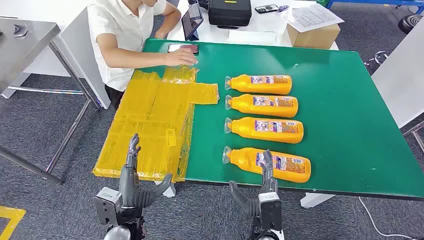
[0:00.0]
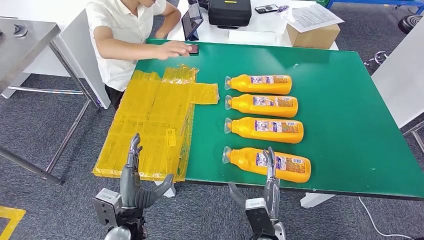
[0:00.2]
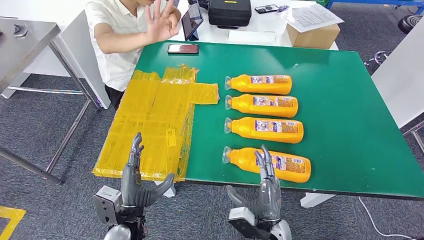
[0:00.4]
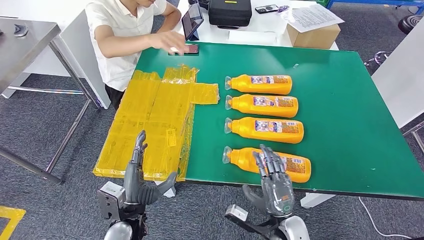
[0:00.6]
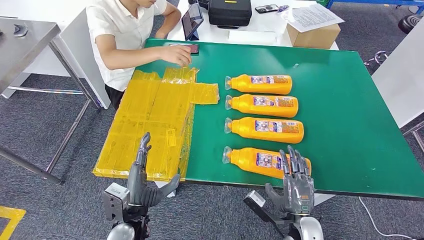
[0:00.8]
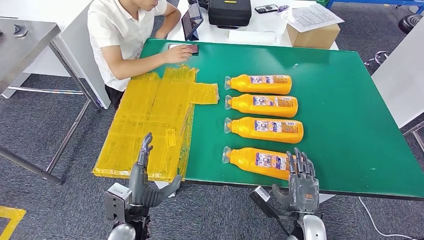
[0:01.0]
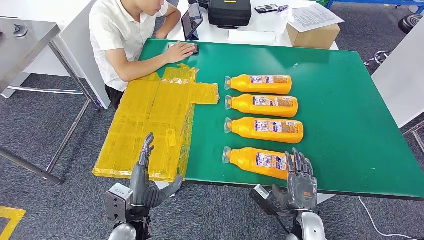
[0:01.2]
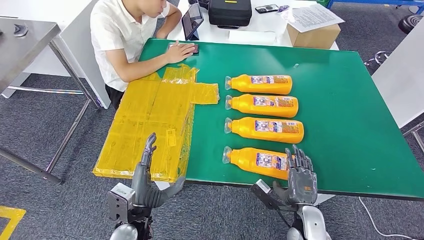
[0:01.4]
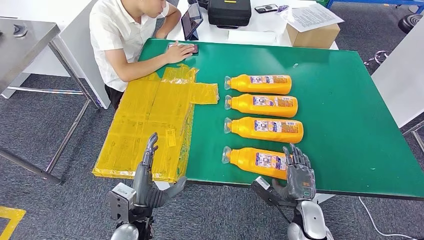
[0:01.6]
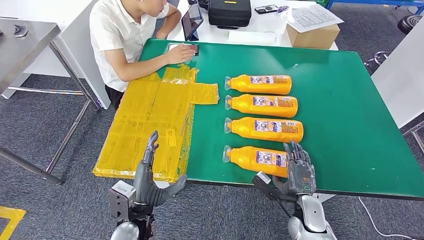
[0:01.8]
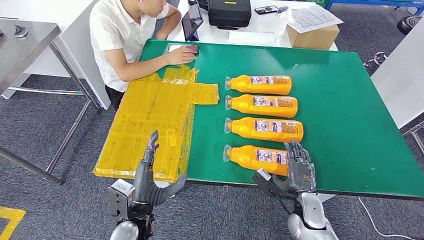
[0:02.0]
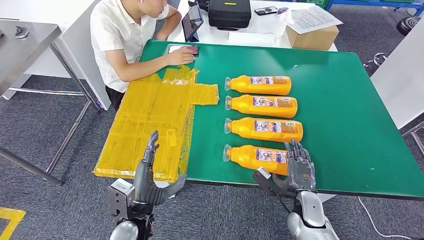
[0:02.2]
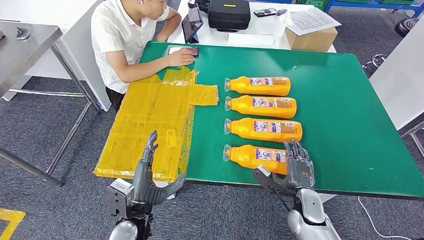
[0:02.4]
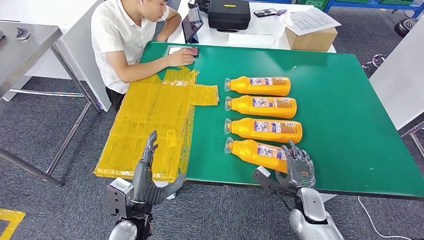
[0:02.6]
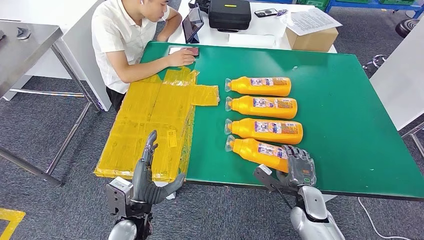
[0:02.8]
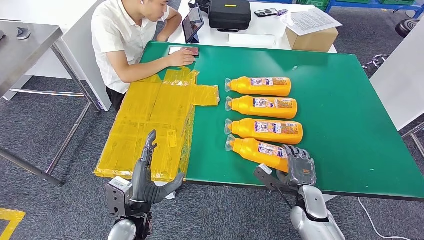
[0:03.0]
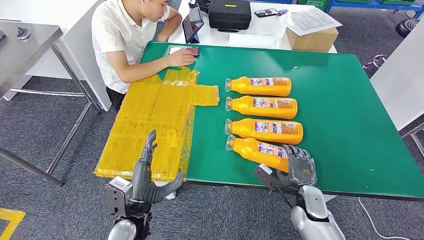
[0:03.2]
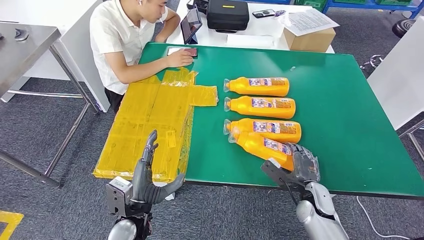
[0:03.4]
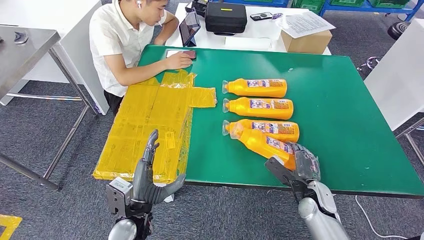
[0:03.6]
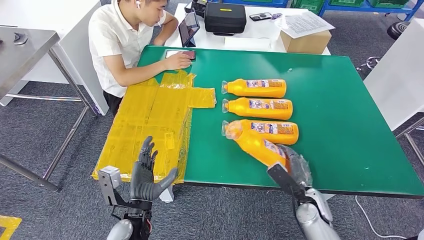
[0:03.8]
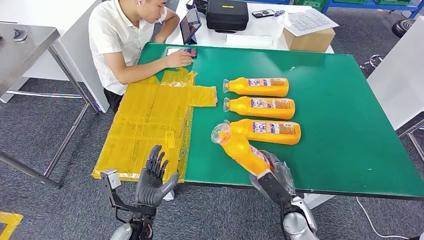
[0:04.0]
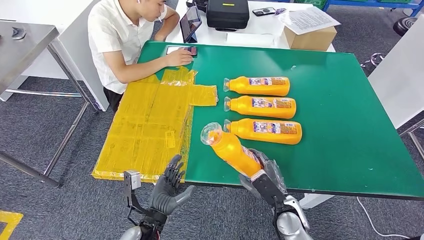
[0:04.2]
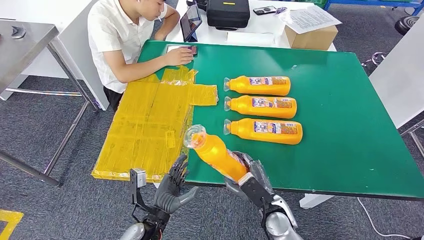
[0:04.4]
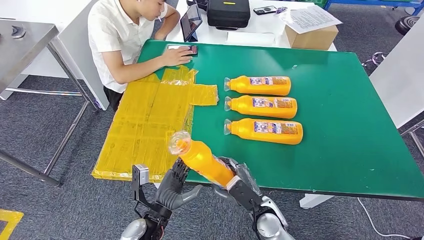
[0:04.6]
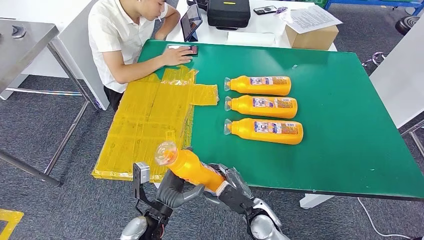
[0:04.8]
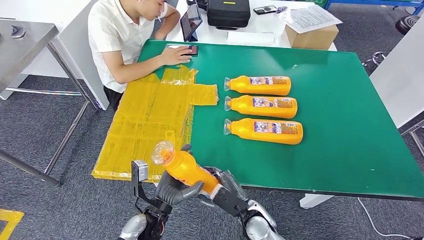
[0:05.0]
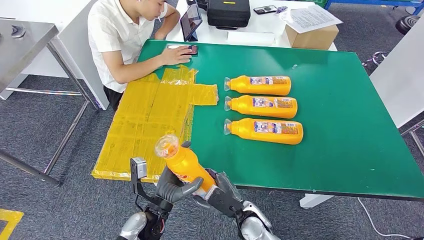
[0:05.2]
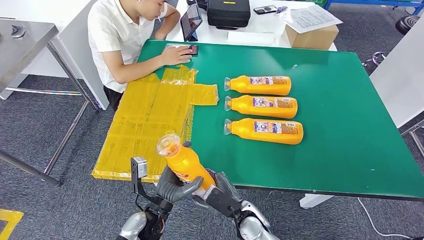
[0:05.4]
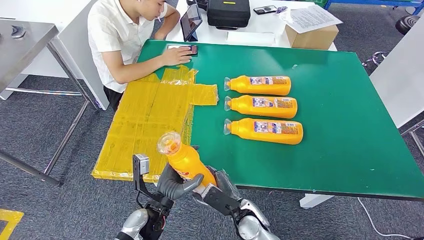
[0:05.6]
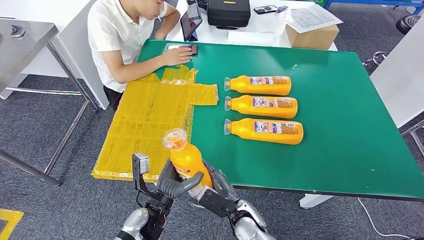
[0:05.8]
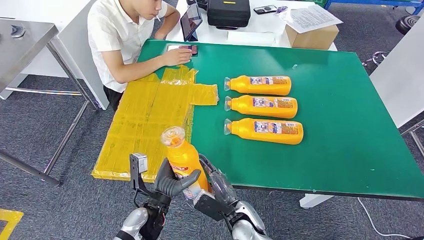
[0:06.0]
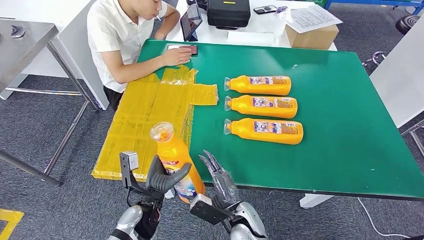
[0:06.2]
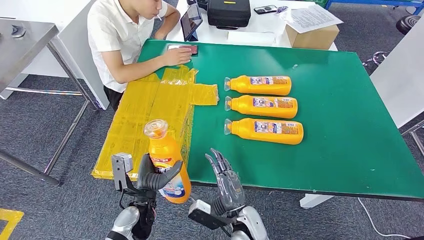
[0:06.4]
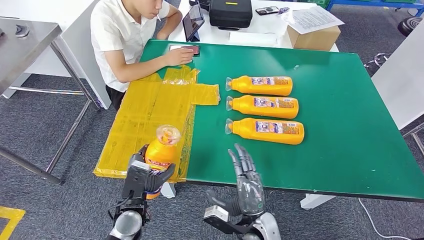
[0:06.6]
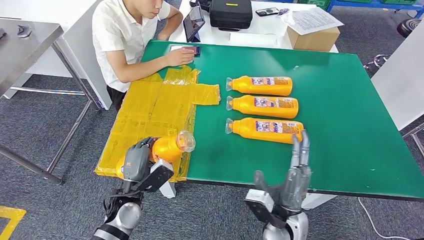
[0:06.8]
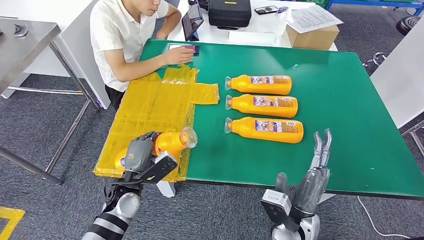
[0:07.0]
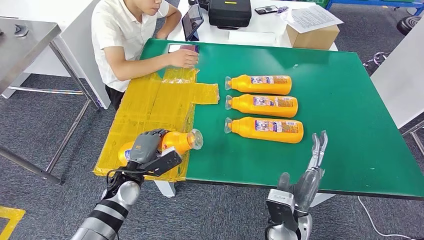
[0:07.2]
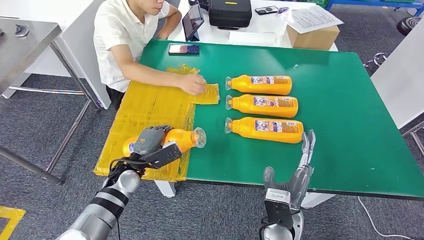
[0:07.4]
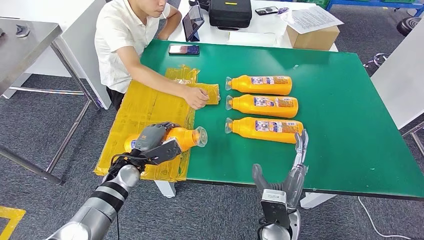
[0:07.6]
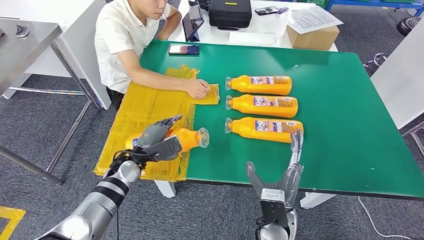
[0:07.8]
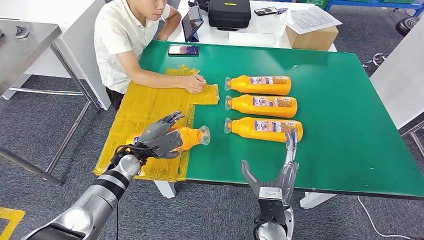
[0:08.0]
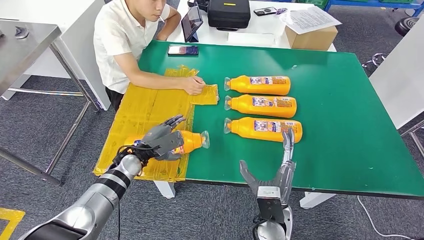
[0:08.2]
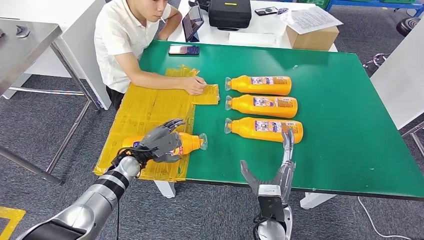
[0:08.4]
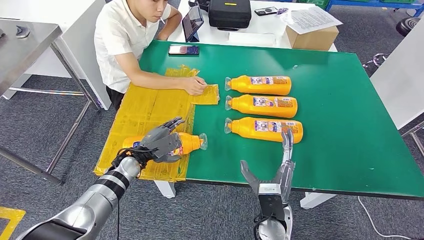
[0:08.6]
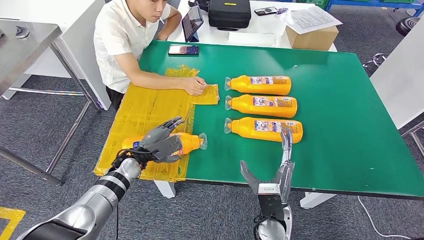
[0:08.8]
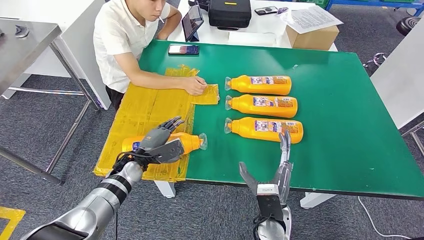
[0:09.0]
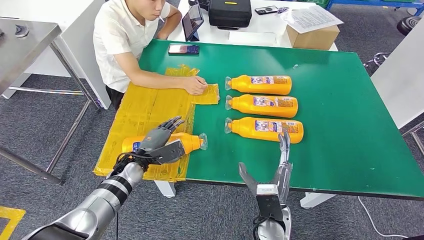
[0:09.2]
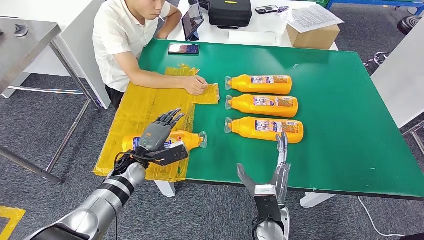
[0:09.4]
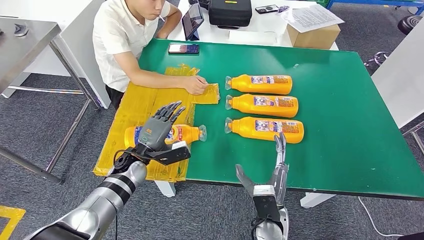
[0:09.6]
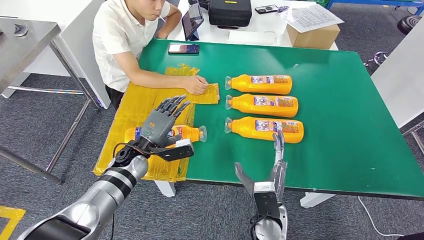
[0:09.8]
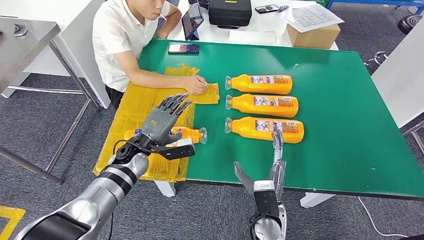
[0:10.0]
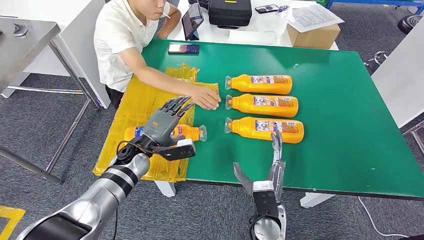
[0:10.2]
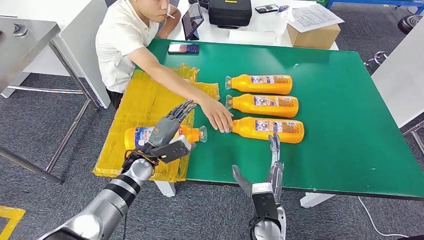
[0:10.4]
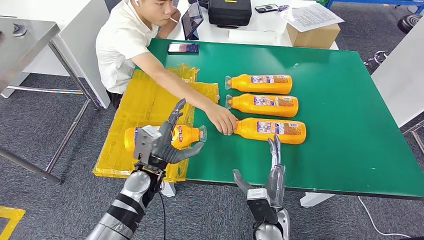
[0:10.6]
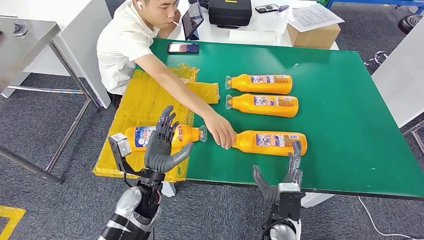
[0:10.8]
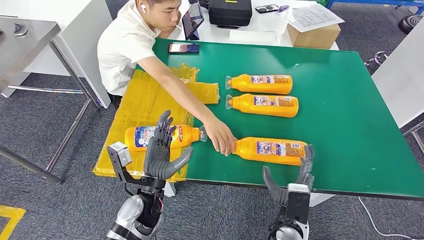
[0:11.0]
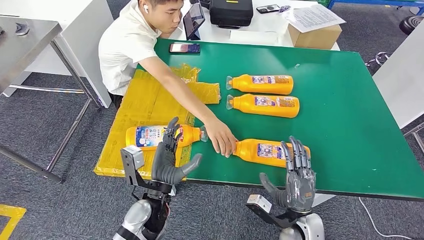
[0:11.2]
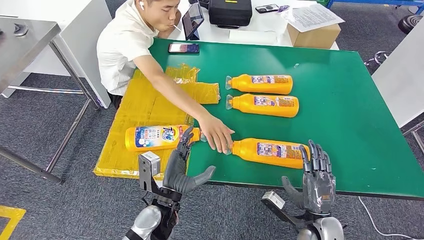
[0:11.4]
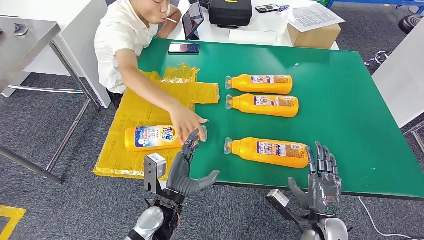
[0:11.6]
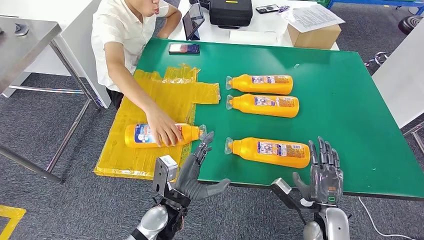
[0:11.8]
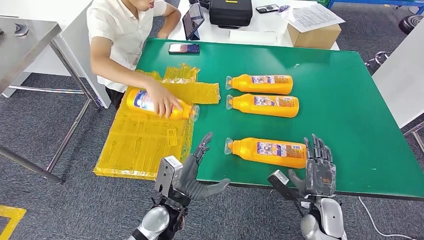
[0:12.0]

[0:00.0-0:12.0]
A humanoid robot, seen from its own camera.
Step, 0:00.0 to 0:06.0: Take the fast-moving consumer goods bottle from the table.
Step, 0:06.4 to 0:08.6: Flip the fast-moving consumer goods bottle to the front side.
0:01.6 to 0:03.0: The hands stay close to where they were, moving slightly.
0:04.4 to 0:06.0: The right hand is displaced to the left by roughly 10 cm.
0:07.6 to 0:09.0: There are only small adjustments of the hands.
0:09.0 to 0:10.4: The left hand shifts by roughly 5 cm.

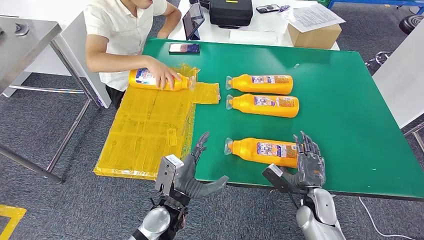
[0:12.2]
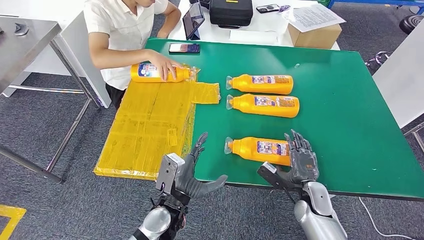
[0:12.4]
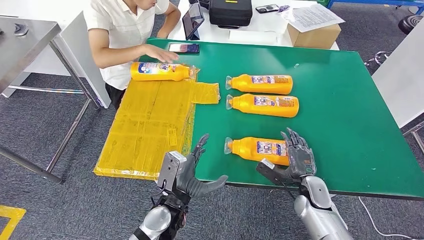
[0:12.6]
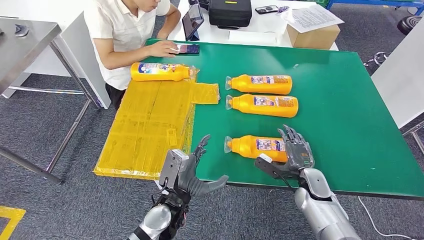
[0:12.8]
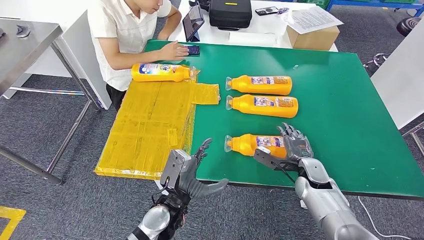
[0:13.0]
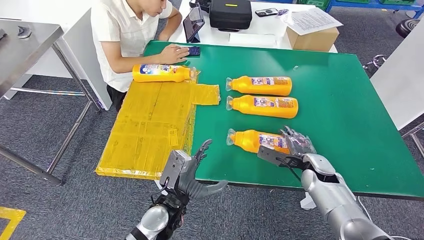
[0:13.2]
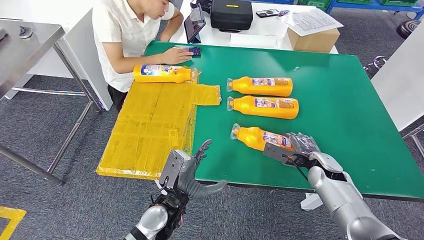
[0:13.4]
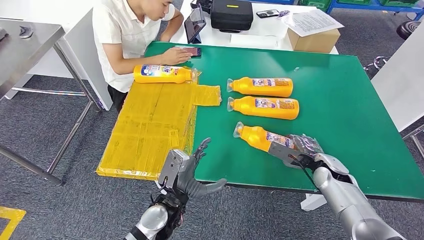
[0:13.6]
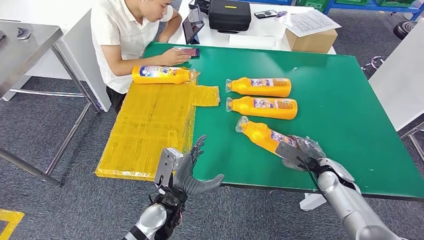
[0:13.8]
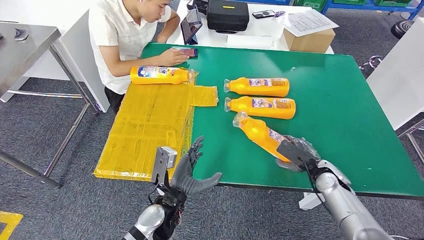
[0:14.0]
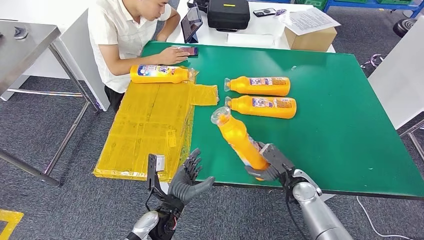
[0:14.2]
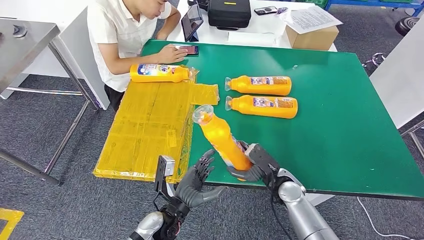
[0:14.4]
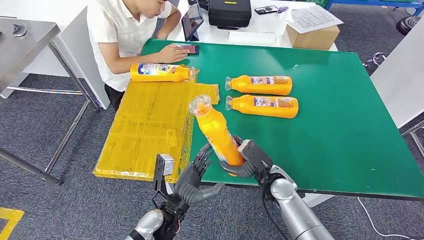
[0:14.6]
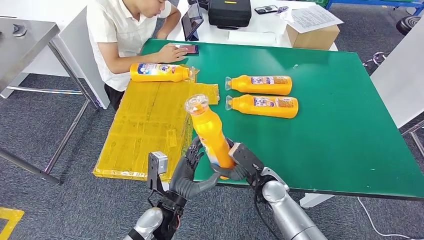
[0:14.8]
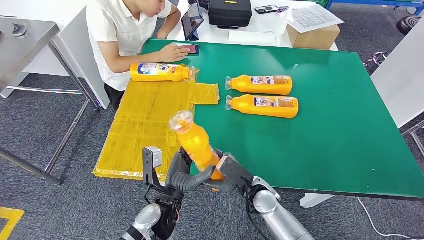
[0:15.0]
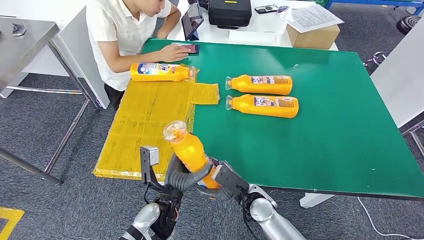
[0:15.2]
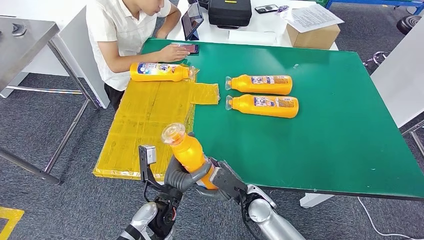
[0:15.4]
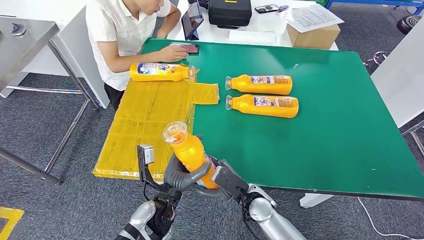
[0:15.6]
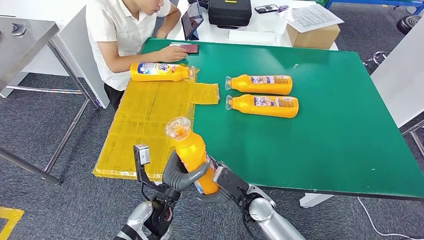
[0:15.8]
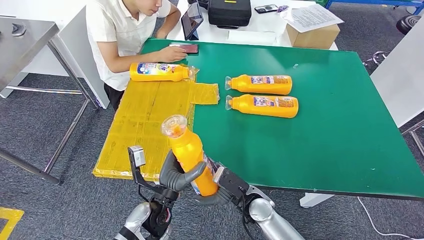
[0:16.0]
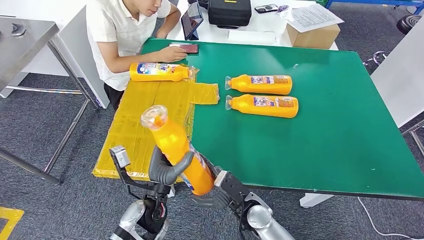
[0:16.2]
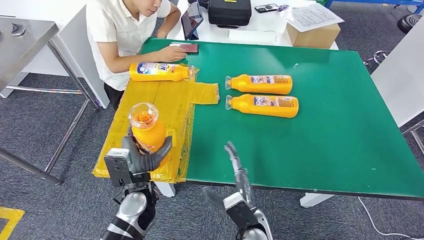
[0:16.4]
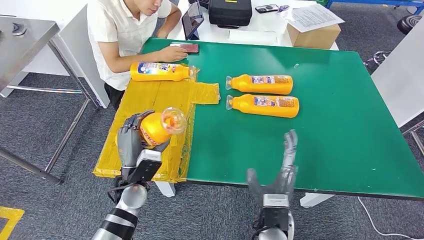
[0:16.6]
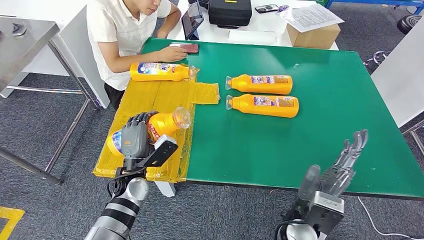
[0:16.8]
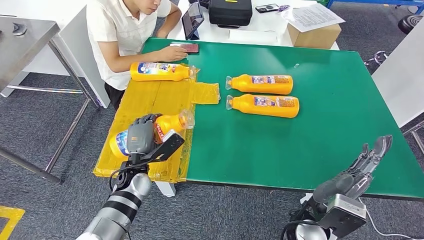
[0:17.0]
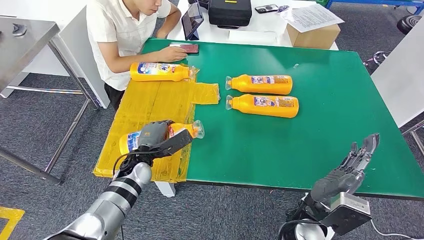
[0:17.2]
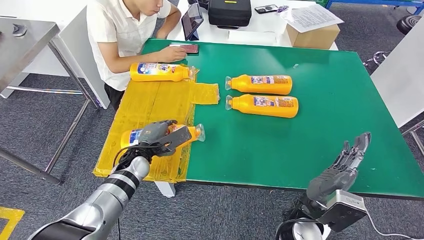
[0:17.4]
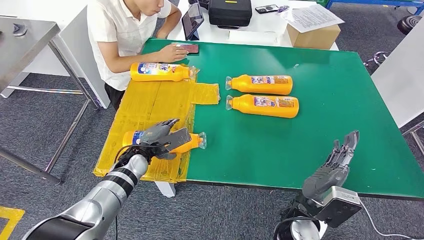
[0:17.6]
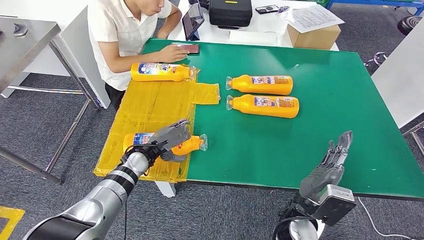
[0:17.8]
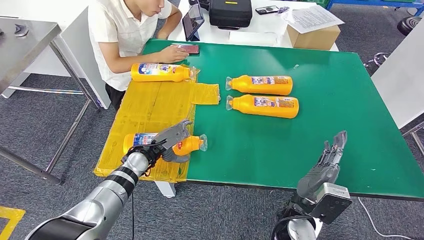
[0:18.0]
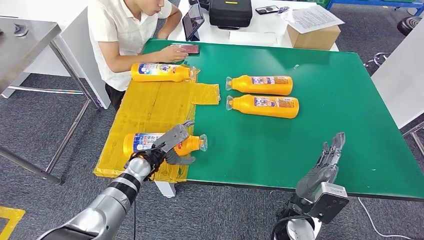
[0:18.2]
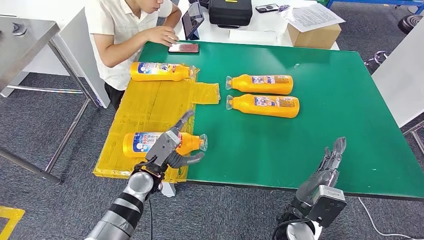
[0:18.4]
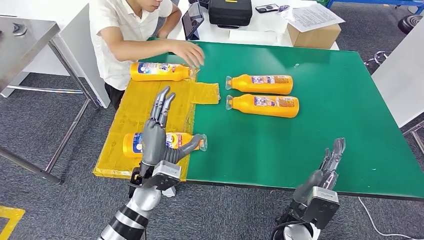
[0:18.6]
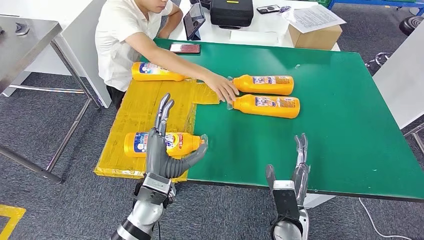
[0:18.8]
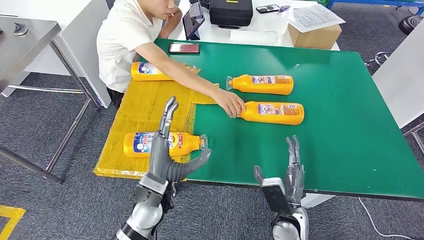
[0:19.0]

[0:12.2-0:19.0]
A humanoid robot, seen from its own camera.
Step, 0:14.4 to 0:17.8: Flip the fast-moving consumer goods bottle to the front side.
0:15.0 to 0:16.2: The right hand ends up some 5 cm from where it was.
0:16.2 to 0:17.6: The left hand shifts approximately 15 cm forward and to the left, while the right hand shifts approximately 10 cm upward and to the right.
